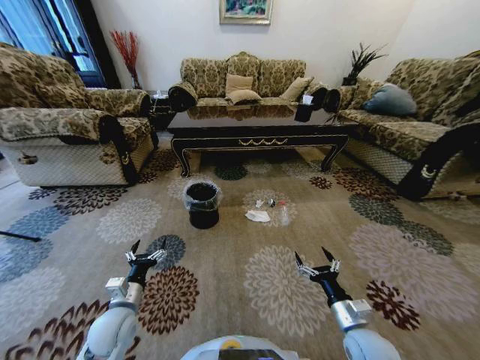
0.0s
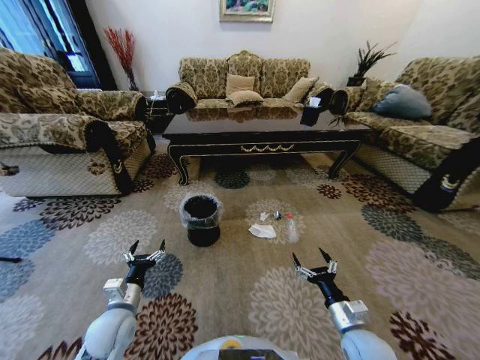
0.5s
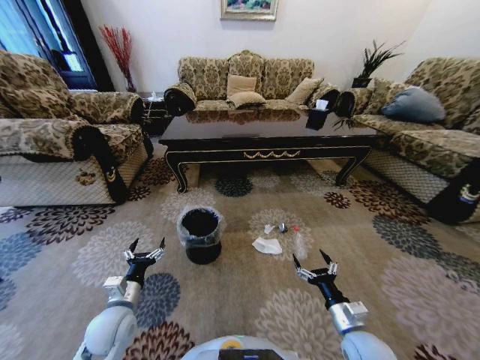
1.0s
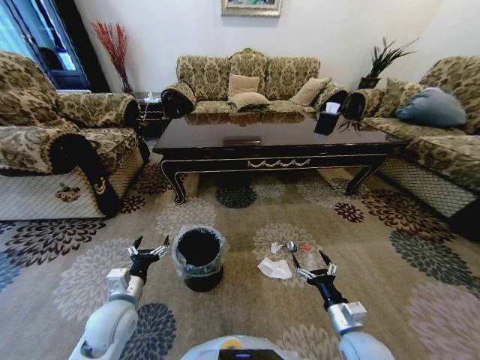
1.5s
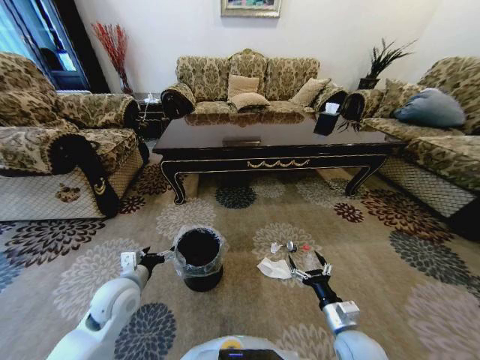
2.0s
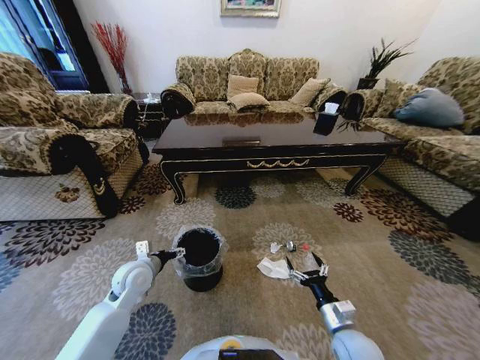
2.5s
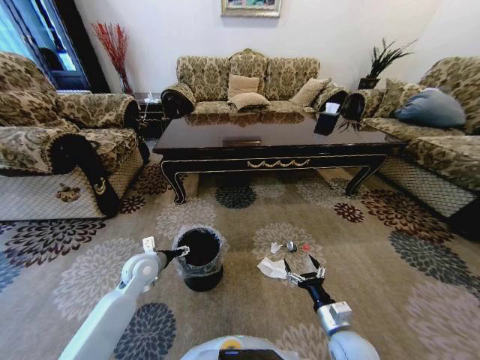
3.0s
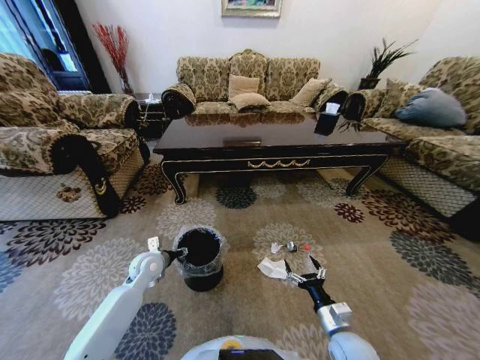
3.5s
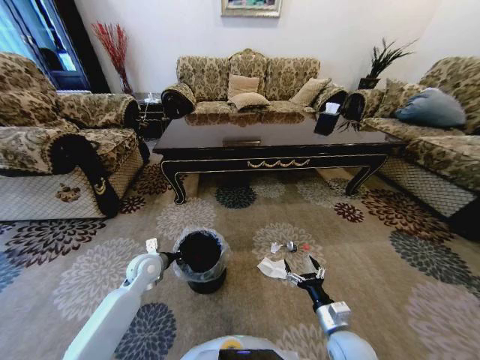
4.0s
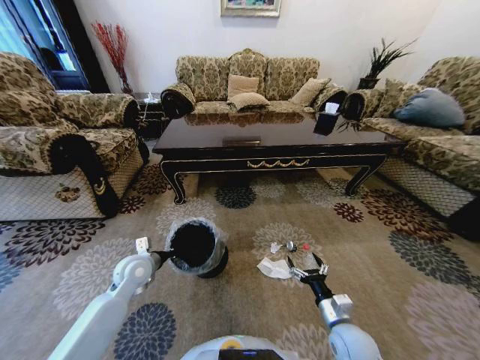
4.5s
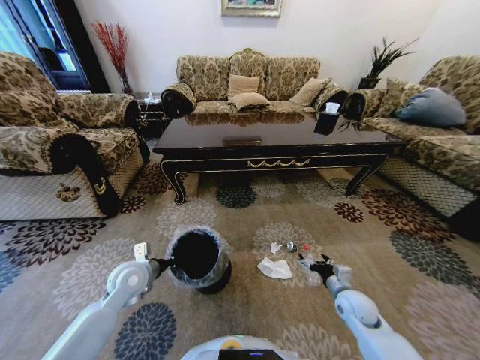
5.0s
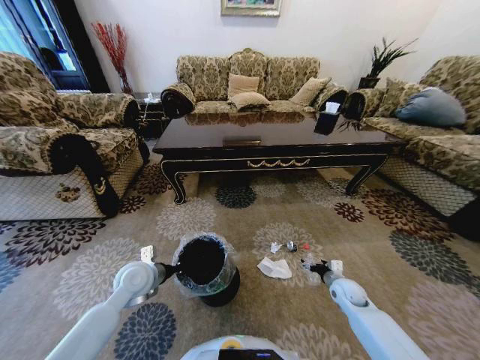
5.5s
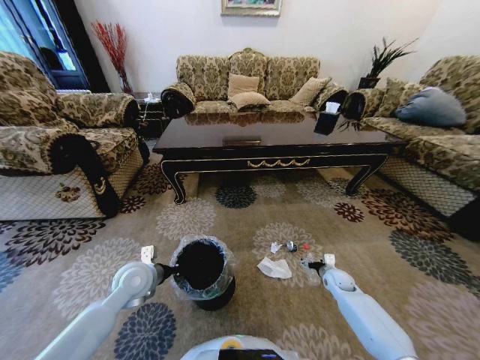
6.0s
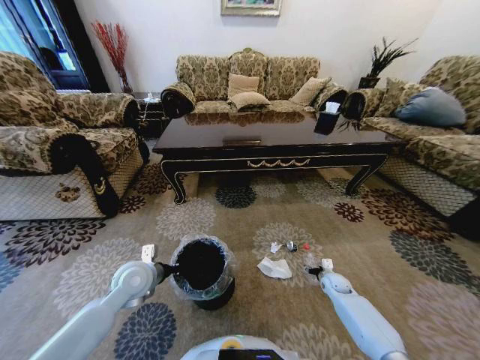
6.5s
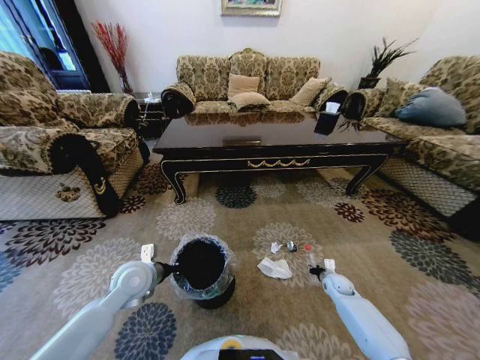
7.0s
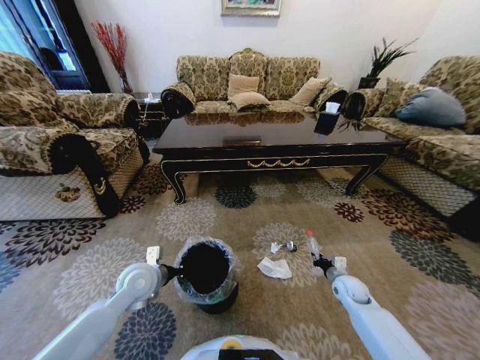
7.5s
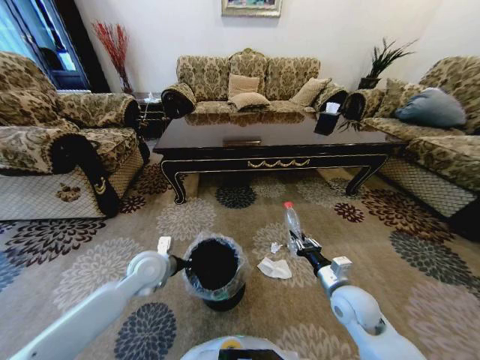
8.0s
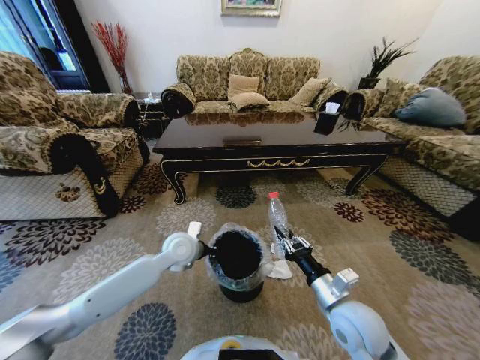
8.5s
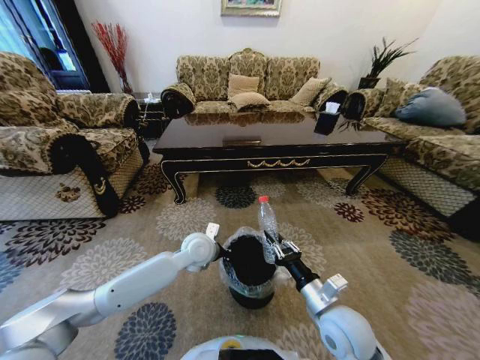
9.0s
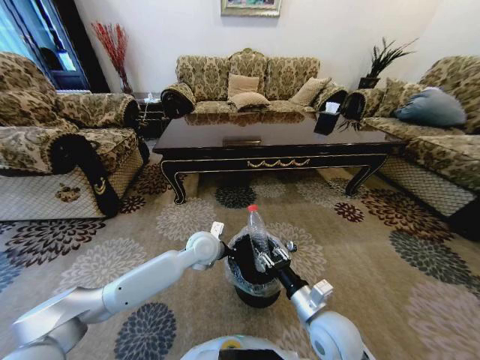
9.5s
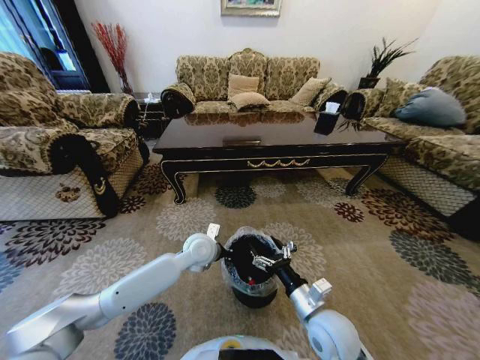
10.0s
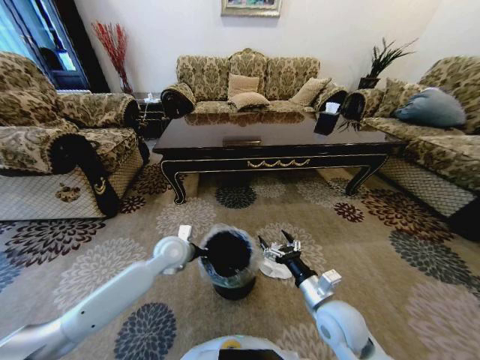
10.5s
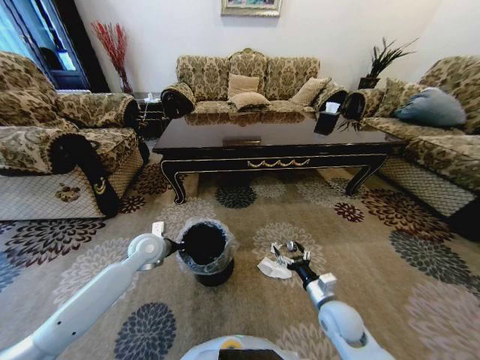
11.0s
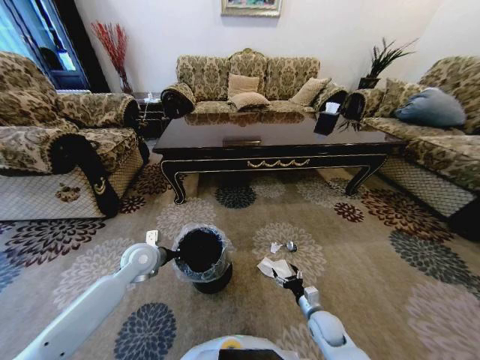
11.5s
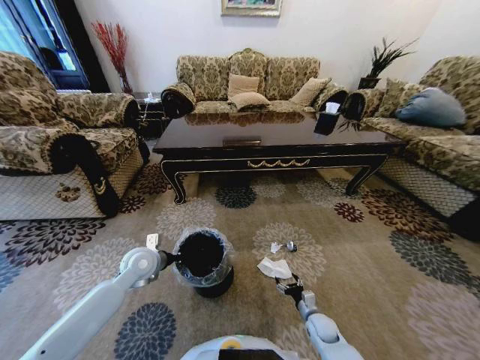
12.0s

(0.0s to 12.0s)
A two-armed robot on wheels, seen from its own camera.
Task of the whole recording: Move to the front of the table and pick up the trash from the floor, then place it into the trash bin.
0.0s - 2.0s: The left gripper goes some 5 cm upward.
2.0s - 4.0s: The left gripper heads forward and downward, covering some 10 cm, and closes.
4.0s - 6.0s: The left gripper travels upward and backward by about 10 cm. The right gripper heads forward, to the right and downward, covering roughly 25 cm.
6.0s - 8.0s: The right gripper moves upward, backward and to the left, approximately 25 cm, and closes its fingers.
8.0s - 10.0s: The left gripper shifts roughly 15 cm to the right and forward. Meanwhile the right gripper moves to the left and backward, approximately 10 cm, and opens its fingers.
10.0s - 12.0s: The left gripper goes roughly 15 cm to the left, while the right gripper shifts approximately 25 cm downward.

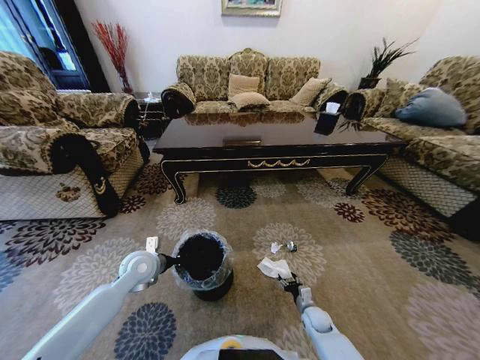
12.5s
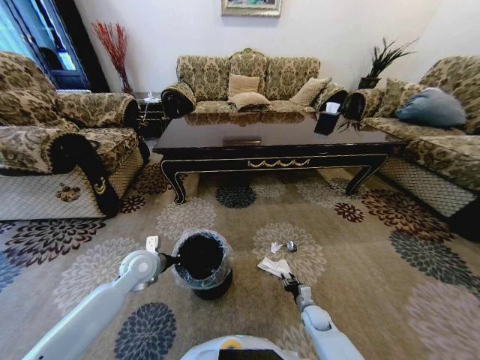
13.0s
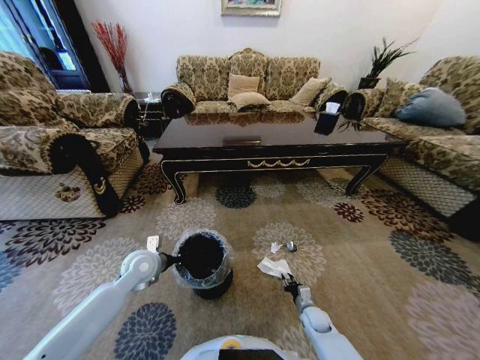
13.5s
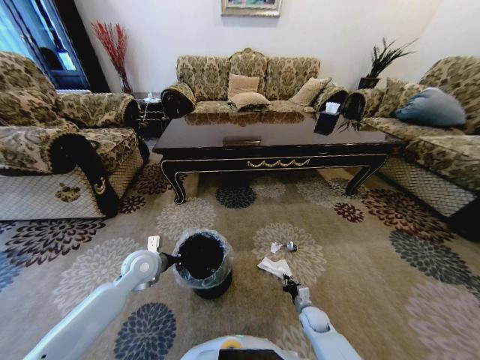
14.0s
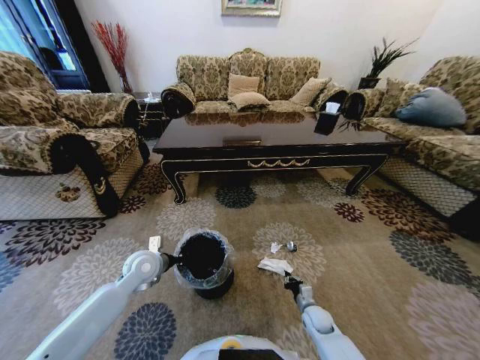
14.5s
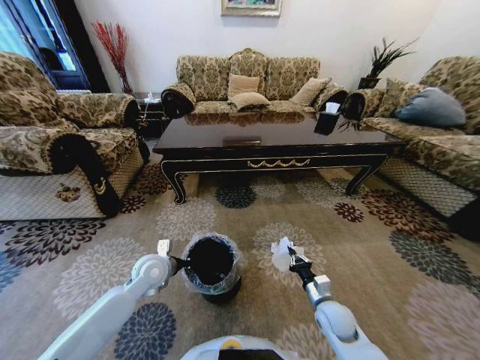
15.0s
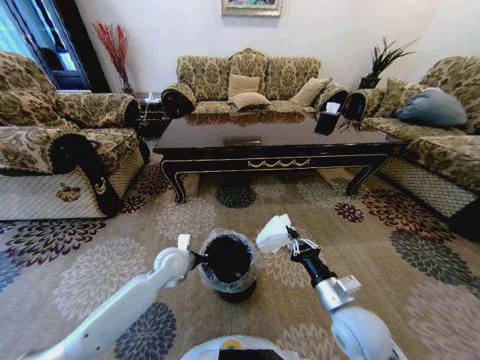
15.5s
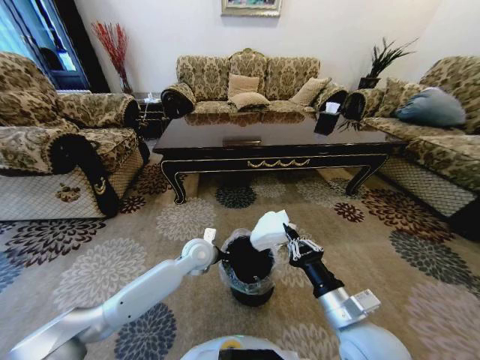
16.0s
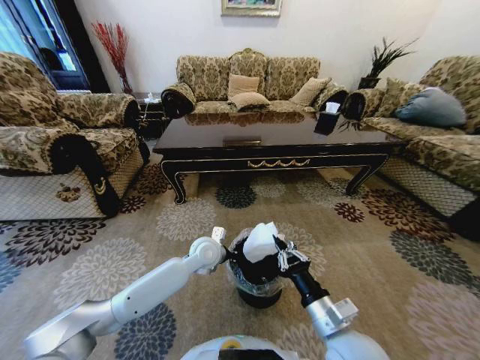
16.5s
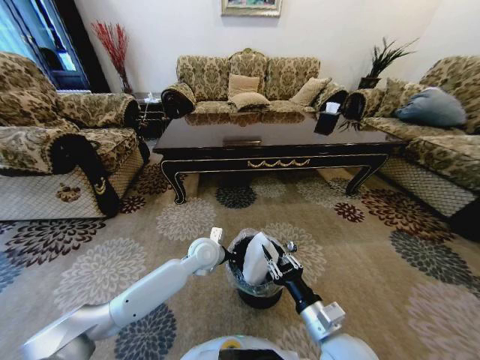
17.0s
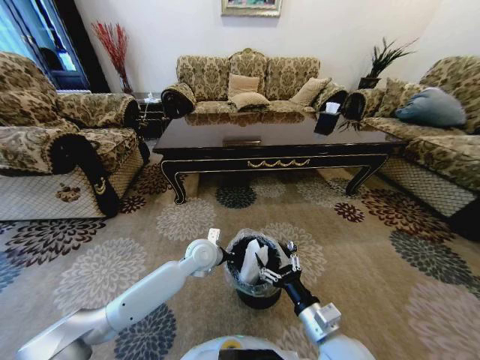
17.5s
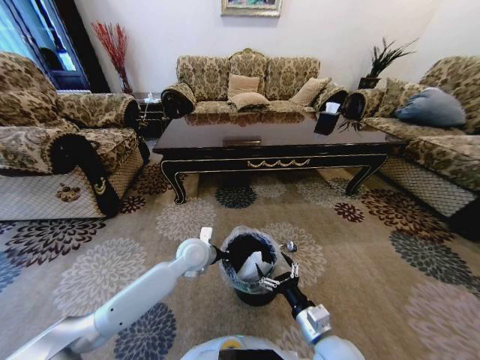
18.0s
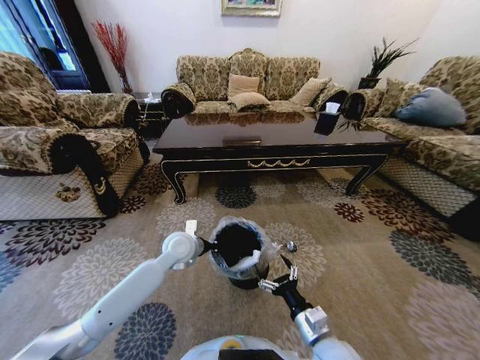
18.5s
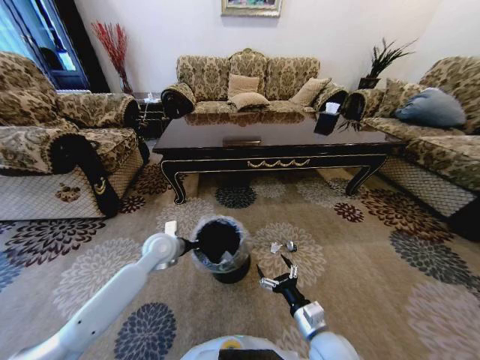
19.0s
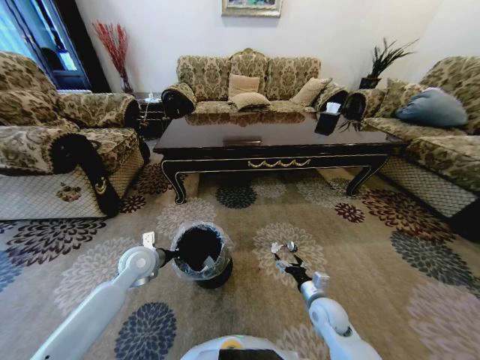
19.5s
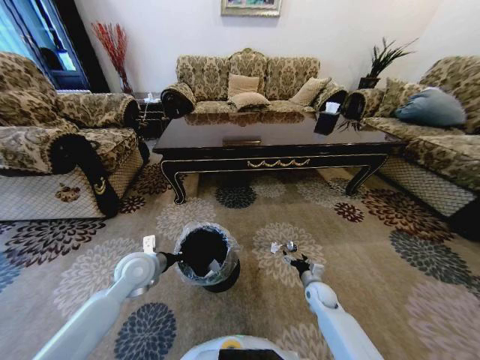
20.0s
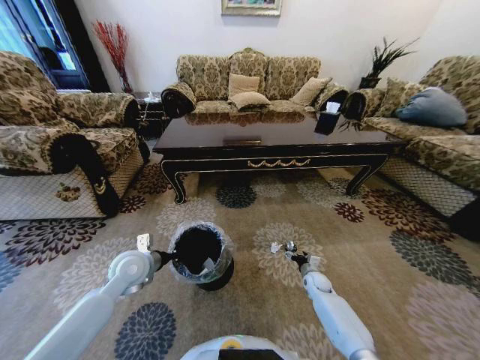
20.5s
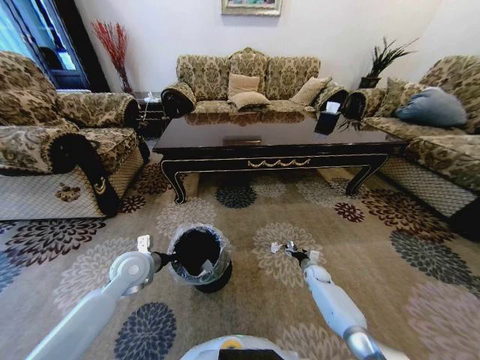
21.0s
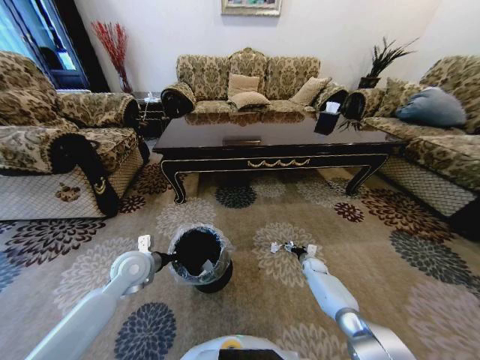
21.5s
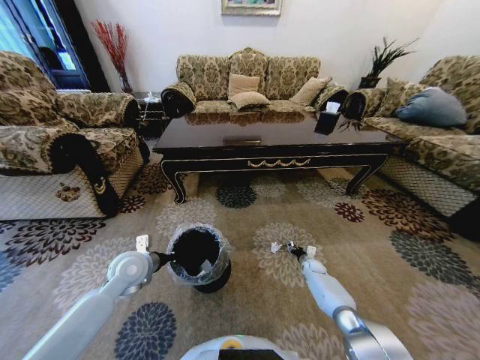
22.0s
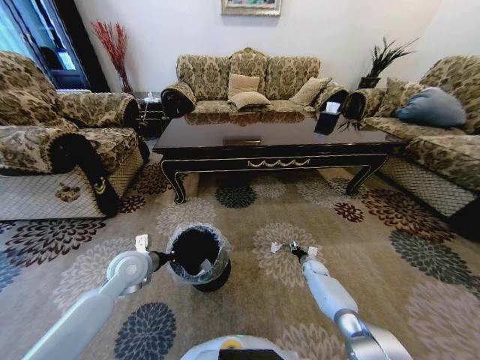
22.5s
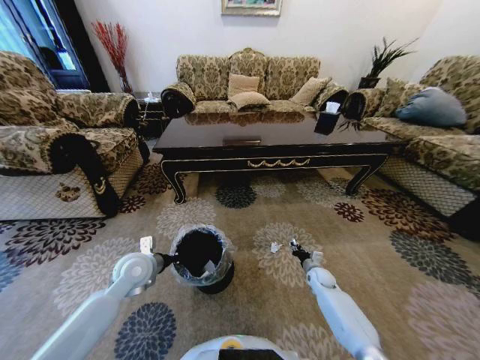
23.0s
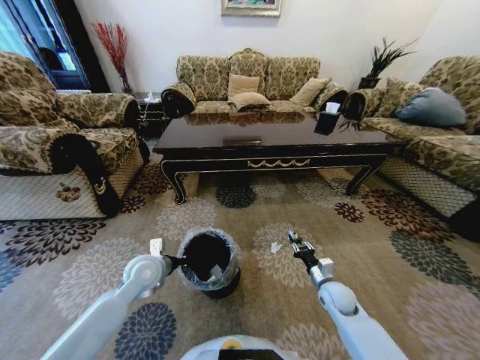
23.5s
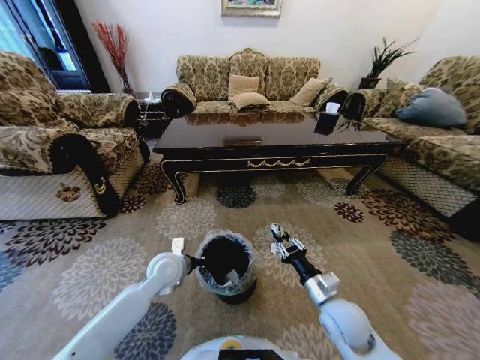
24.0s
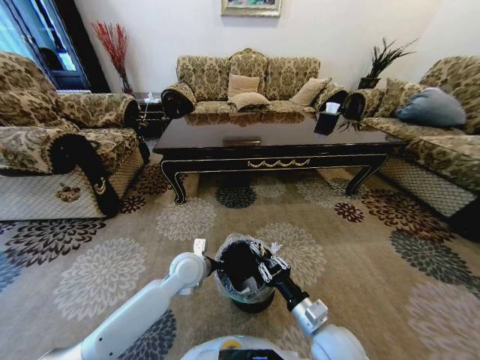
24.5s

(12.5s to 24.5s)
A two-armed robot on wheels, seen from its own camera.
Task of the whole recording: Move to the front of the table and pick up the trash from the floor, then place it into the trash bin.
12.5s - 14.5s: The right gripper closes up.
14.5s - 16.5s: The left gripper travels to the right by about 20 cm; the right gripper travels upward by some 30 cm.
16.5s - 18.5s: The right gripper moves downward, roughly 10 cm, and opens its fingers. Meanwhile the left gripper goes about 10 cm to the left.
18.5s - 20.5s: The right gripper is displaced forward, downward and to the right by some 35 cm. The left gripper heads to the left and backward, covering about 15 cm.
20.5s - 22.5s: The right gripper heads forward, covering roughly 5 cm, and closes its fingers.
22.5s - 24.5s: The left gripper goes roughly 15 cm to the right, while the right gripper heads backward, upward and to the left, covering some 40 cm.

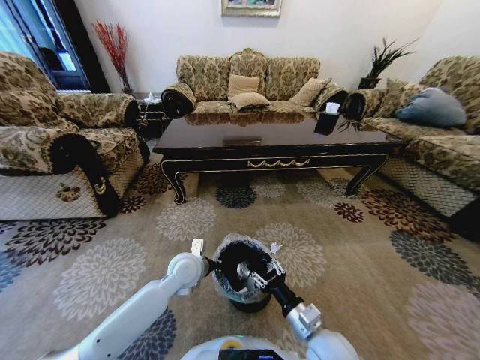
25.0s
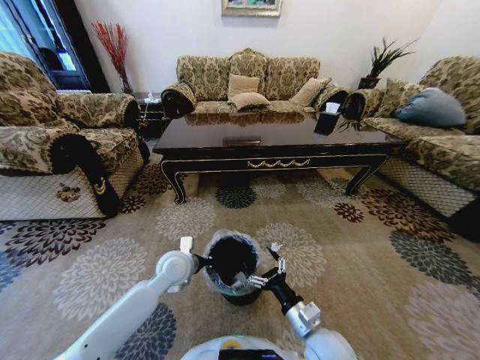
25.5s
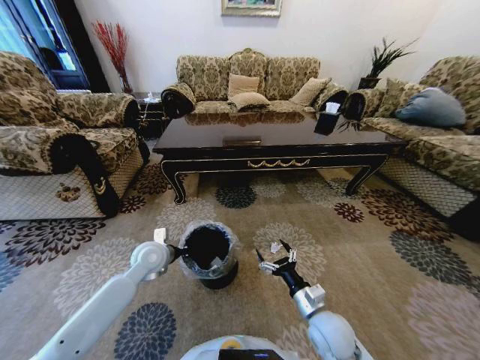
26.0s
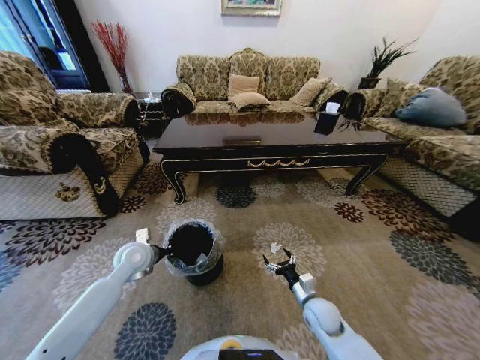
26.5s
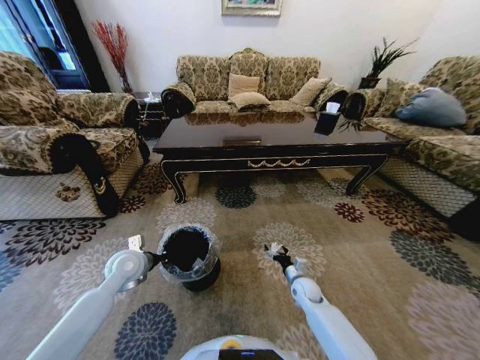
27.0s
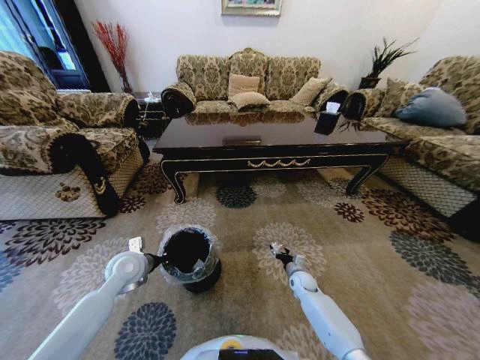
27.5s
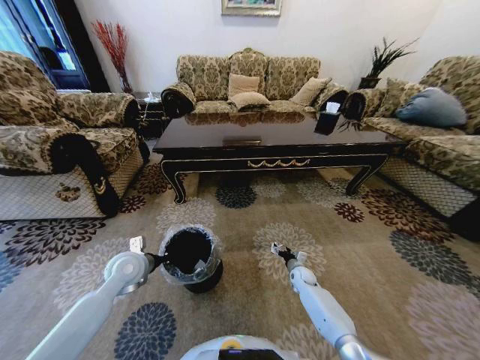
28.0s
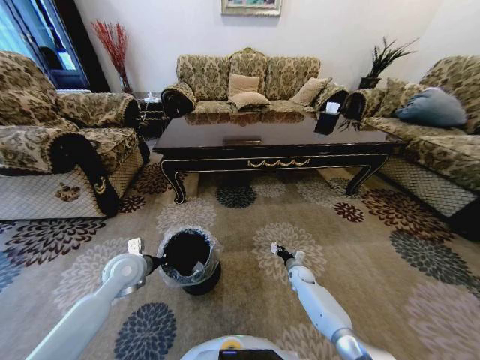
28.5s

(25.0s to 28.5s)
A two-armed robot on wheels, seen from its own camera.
Task of the whole recording: Move to the front of the table and pick up the trash from the floor, then place it into the trash bin.
25.0s - 27.0s: The left gripper travels to the left by approximately 15 cm; the right gripper shifts about 25 cm forward and downward, and opens its fingers.
27.0s - 28.5s: The right gripper moves forward and downward, some 10 cm, and closes its fingers.
